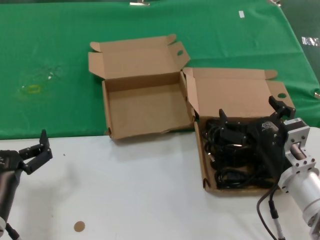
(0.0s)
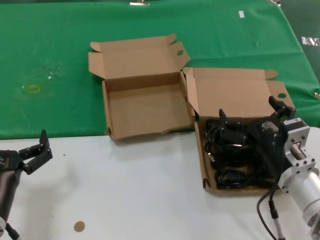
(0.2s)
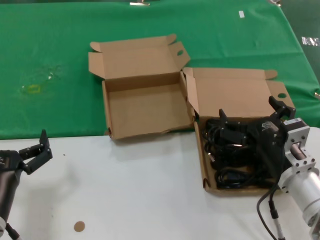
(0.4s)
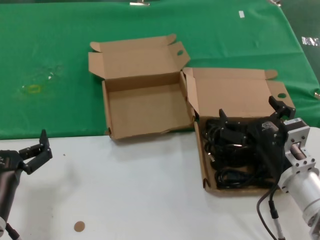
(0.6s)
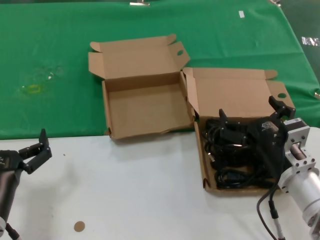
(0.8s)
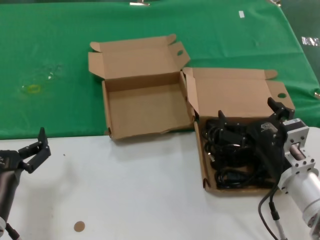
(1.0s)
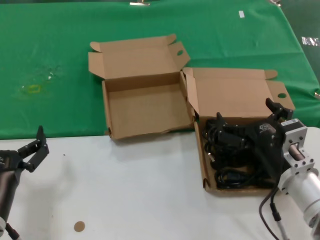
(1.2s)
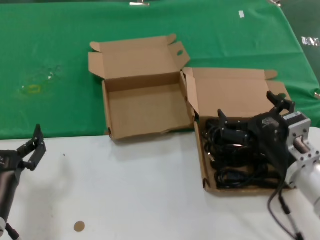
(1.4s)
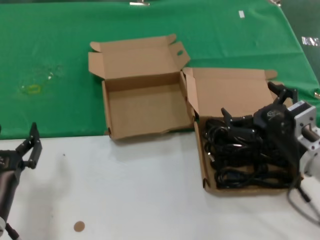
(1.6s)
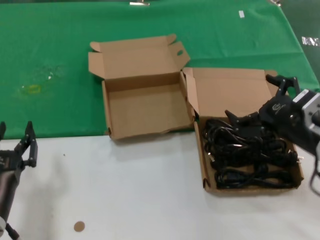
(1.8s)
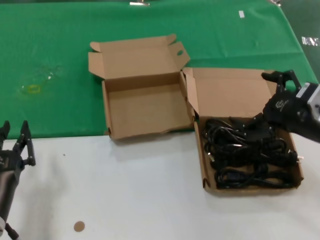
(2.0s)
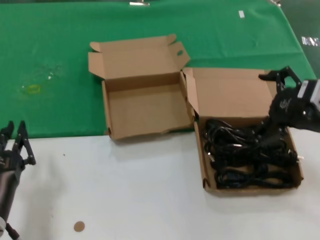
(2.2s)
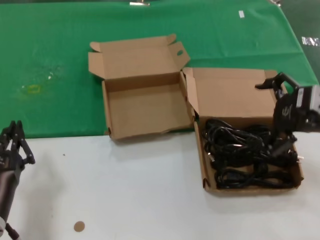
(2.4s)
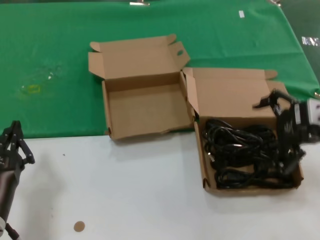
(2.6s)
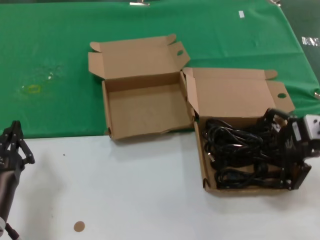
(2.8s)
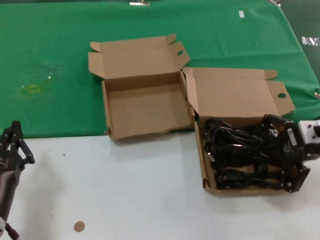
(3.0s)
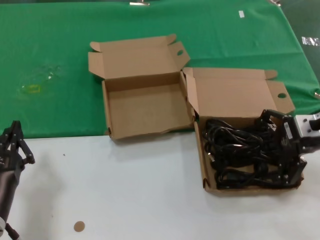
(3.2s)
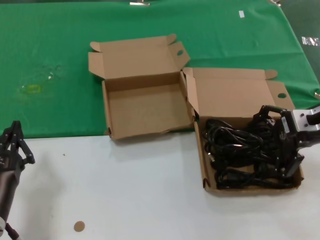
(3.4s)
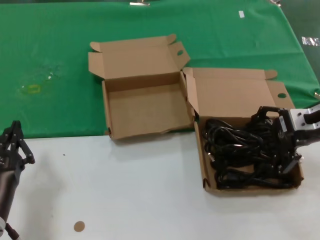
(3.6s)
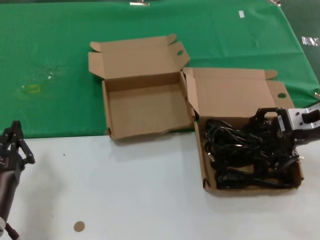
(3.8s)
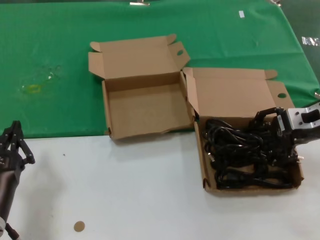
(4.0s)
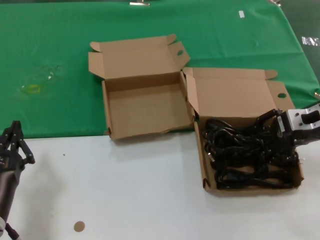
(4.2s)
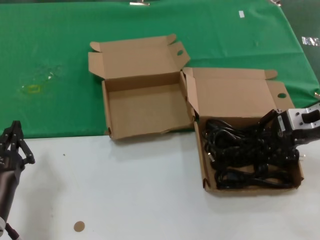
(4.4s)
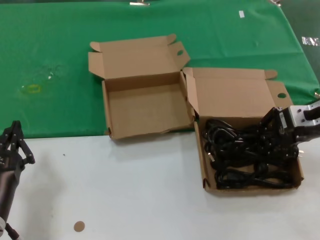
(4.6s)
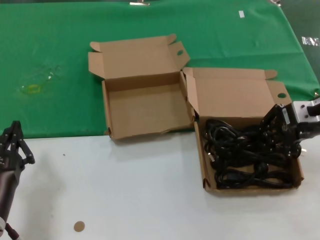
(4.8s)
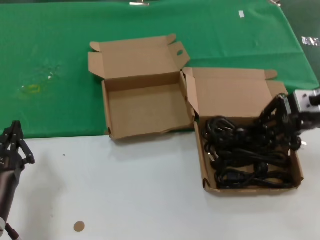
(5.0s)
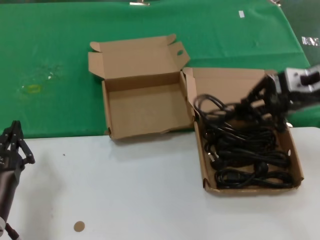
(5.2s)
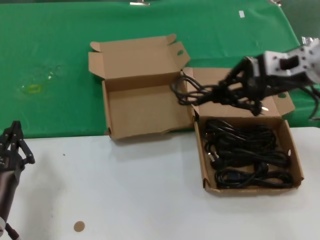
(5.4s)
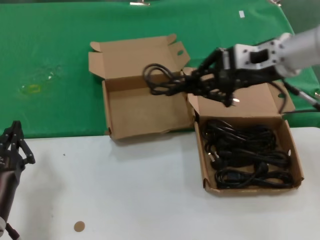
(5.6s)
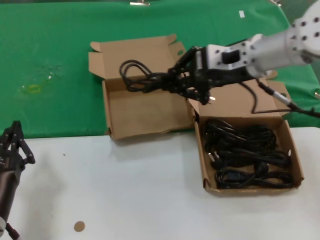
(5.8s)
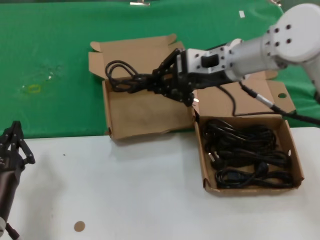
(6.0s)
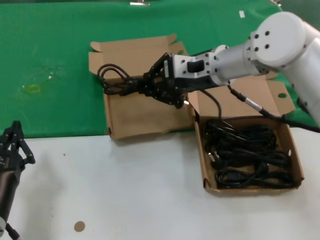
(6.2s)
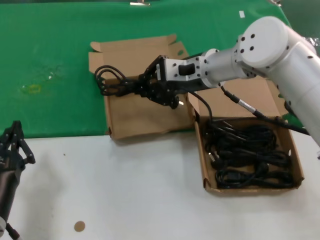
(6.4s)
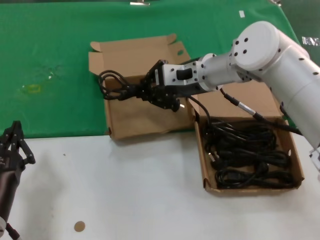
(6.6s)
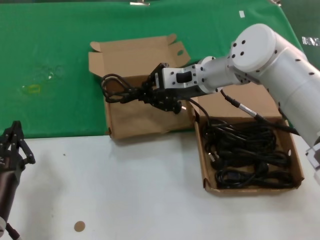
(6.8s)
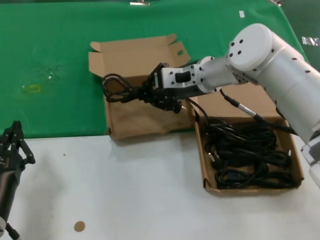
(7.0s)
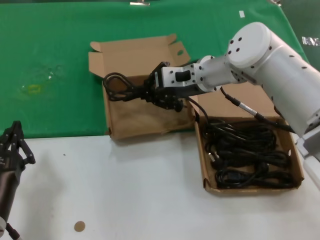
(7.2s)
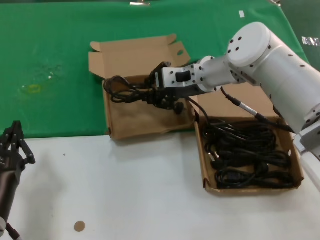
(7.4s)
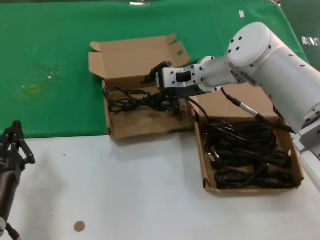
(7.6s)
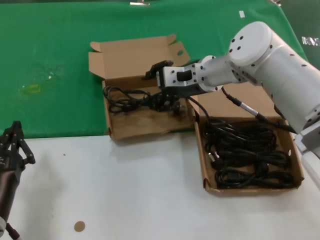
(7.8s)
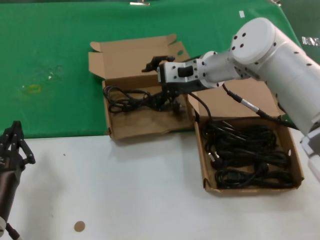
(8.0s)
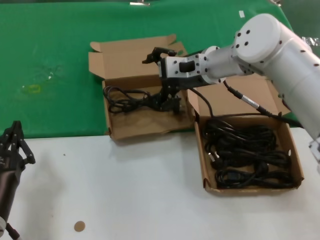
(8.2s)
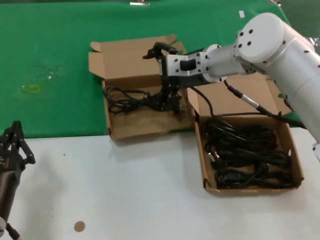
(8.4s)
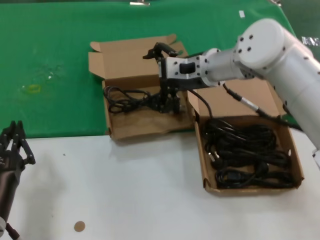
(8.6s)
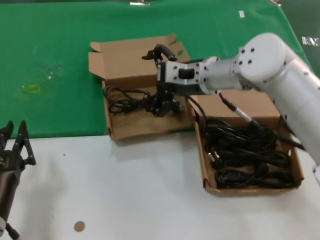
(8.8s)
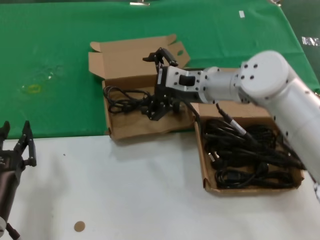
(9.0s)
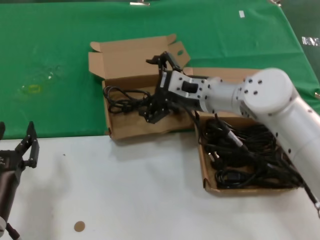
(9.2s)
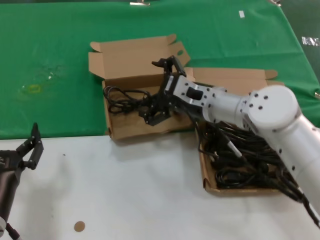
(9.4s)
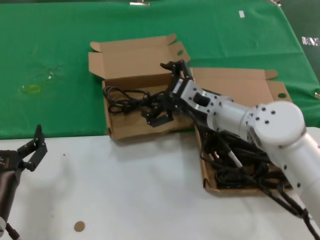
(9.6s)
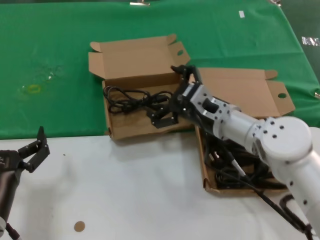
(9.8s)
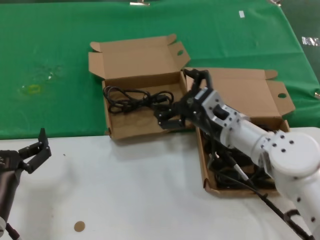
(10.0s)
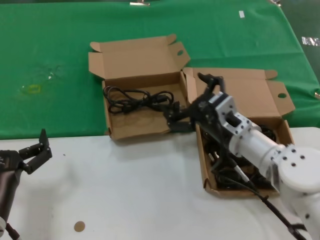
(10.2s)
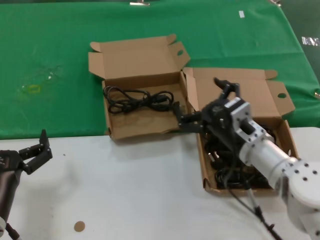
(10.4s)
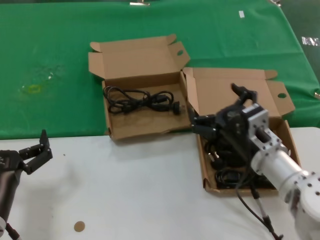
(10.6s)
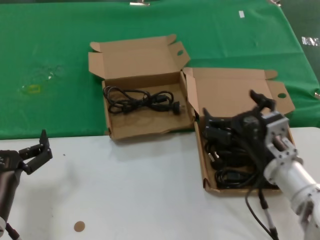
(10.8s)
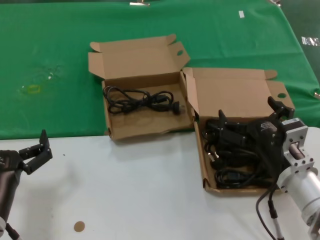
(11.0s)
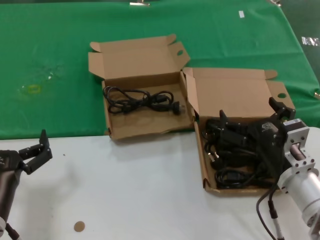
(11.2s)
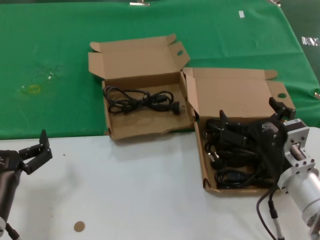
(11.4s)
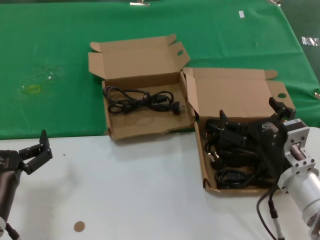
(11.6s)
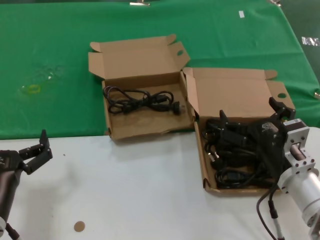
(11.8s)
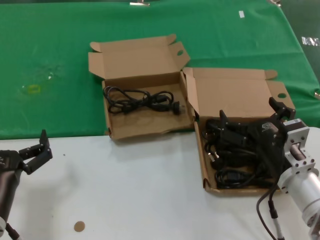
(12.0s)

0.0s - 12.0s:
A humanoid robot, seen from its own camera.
Task of the whole recording: take the parts from the box containing them and put them into an empty box.
Step, 0.0s - 4.2s: Grasp the data cable.
Step, 4.4s - 7.4s: Place the data cable in the another box.
0.0s - 1.6s: The right hand shifts by about 5 cm.
1.6s - 3.0s: The right hand heads upward, to the right and forward, covering approximately 15 cm.
3.0s - 4.4s: The right hand ends up about 5 cm from where it was.
4.4s - 6.0s: The right hand travels to the left and upward by about 20 cm.
6.0s - 7.6s: The right hand goes some 10 cm downward and forward.
7.6s - 9.0s: The hands stay close to where they were, moving slightly.
9.0s - 10.4s: The right hand shifts about 20 cm backward, downward and to the right.
10.4s - 12.0s: The right hand shifts roughly 10 cm backward.

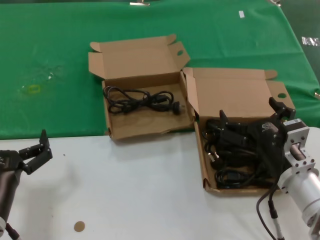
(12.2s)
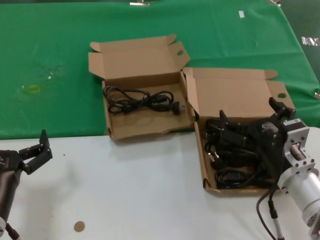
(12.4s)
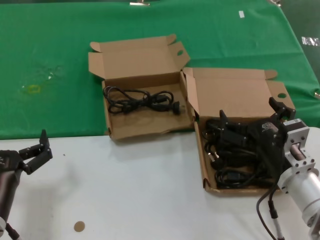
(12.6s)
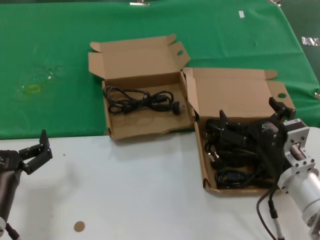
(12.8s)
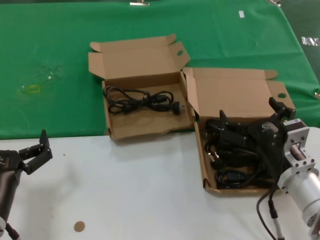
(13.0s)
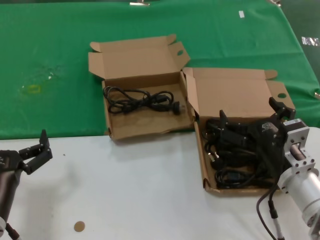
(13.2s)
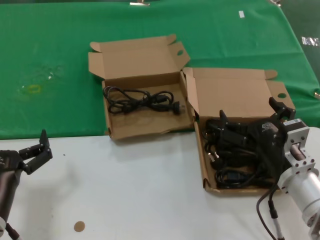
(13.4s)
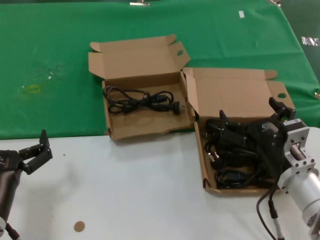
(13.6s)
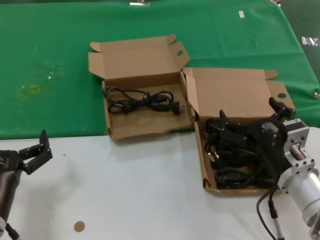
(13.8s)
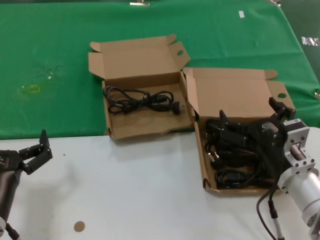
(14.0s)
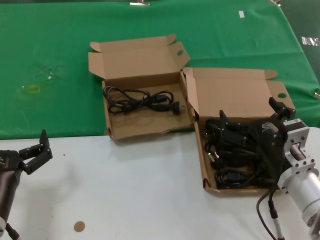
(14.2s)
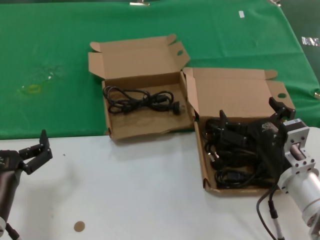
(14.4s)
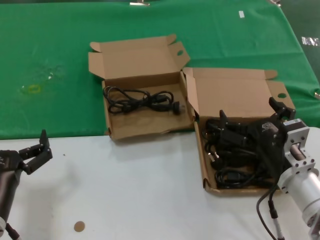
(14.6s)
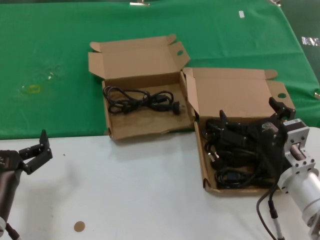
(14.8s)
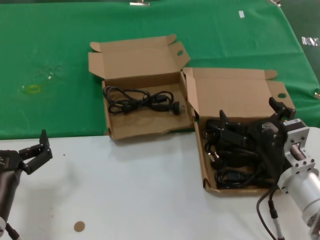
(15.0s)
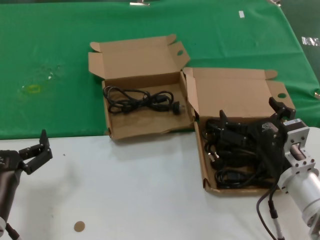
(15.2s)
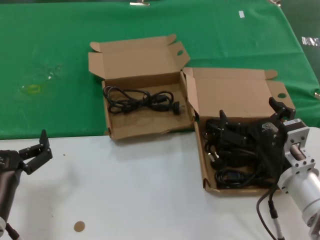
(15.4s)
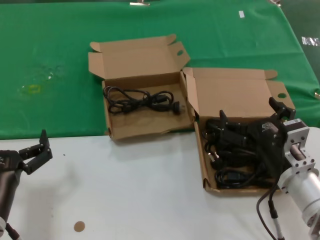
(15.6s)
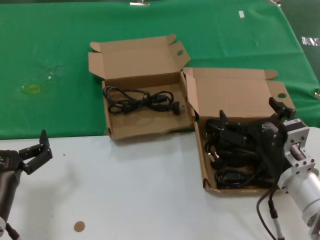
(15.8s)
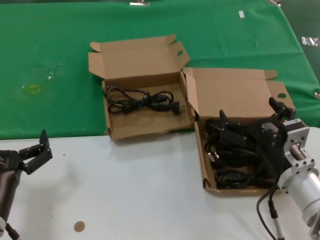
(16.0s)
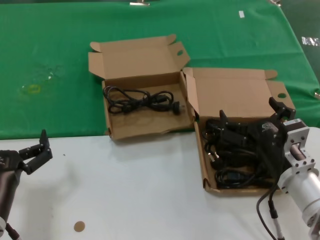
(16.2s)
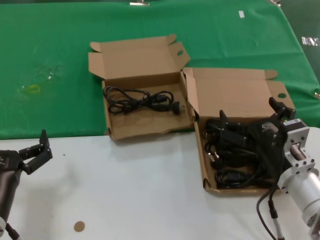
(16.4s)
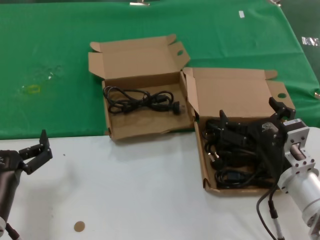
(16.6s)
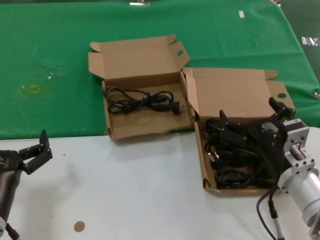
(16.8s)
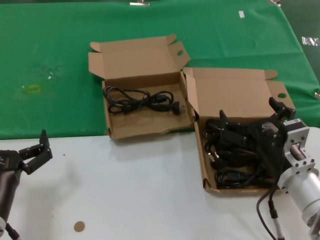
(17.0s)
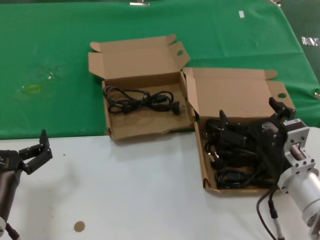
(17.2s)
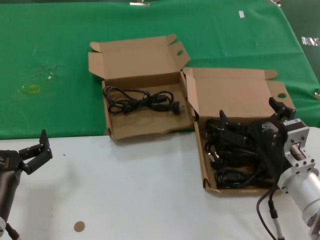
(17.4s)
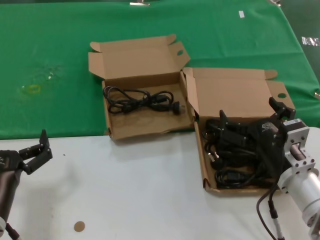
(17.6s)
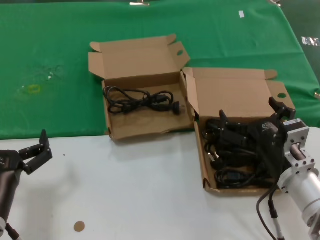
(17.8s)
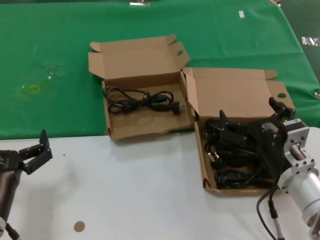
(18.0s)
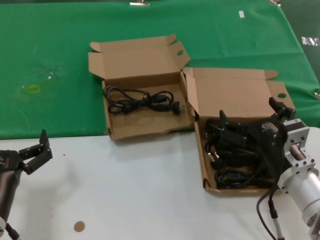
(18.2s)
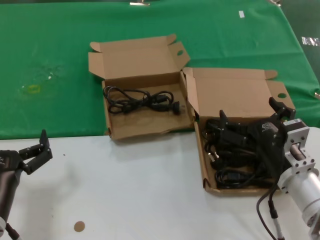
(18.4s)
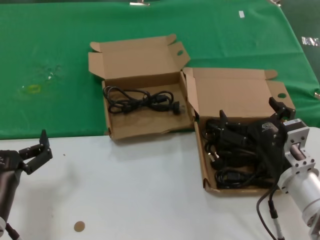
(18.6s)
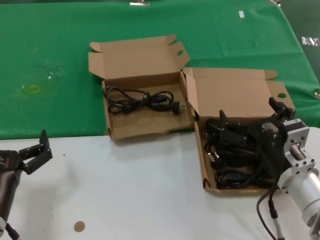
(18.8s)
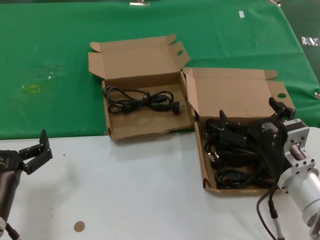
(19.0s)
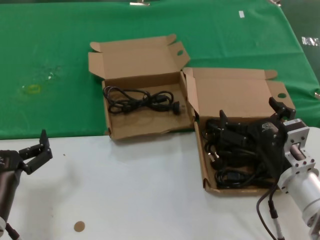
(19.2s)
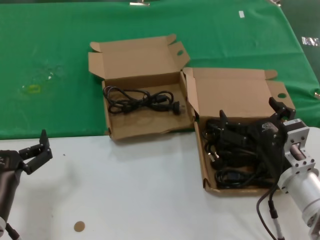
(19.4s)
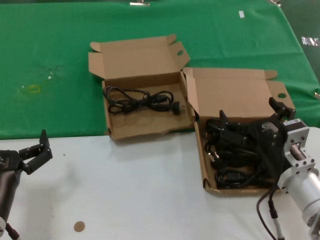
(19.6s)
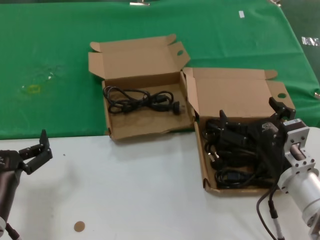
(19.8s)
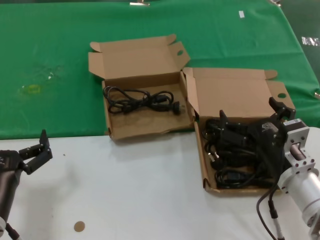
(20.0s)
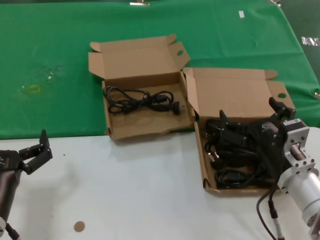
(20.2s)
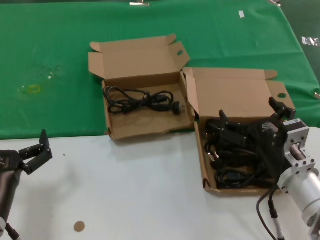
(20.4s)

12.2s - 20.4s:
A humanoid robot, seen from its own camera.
Task of the whole recording: take the parts from the box containing them and put them into an empty box.
12.2s - 20.4s: Both hands stay put.

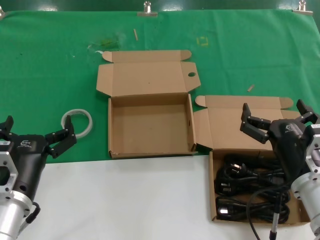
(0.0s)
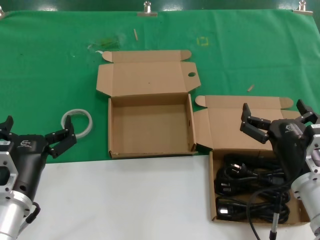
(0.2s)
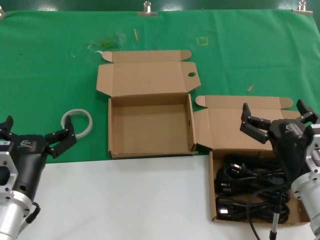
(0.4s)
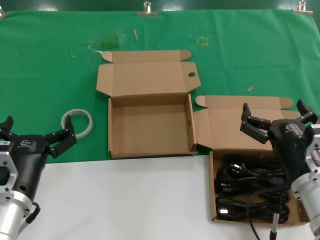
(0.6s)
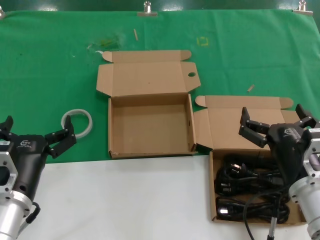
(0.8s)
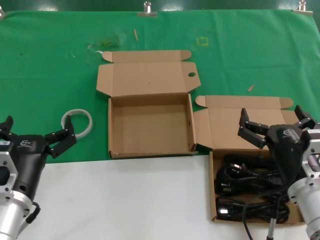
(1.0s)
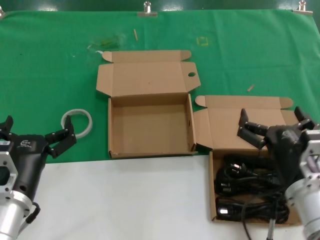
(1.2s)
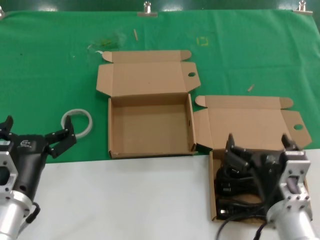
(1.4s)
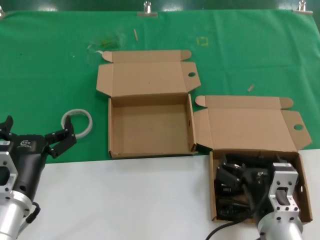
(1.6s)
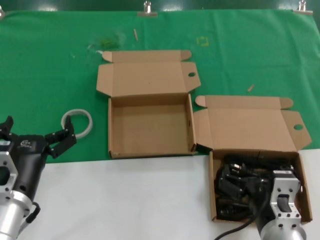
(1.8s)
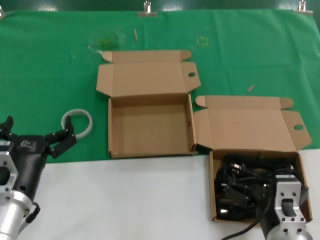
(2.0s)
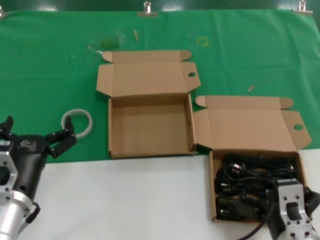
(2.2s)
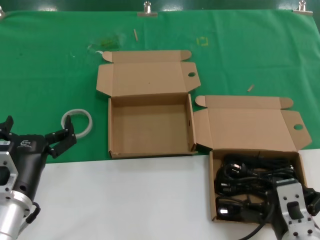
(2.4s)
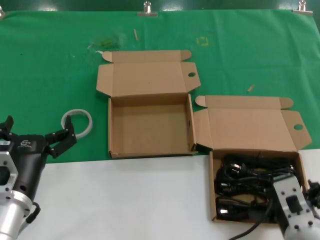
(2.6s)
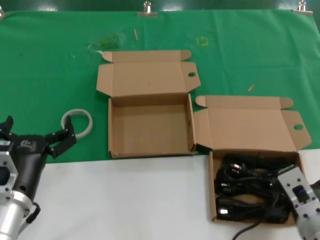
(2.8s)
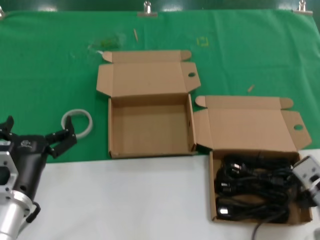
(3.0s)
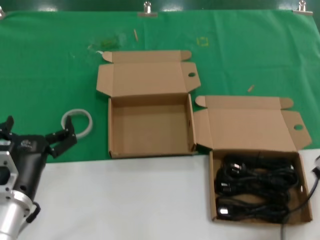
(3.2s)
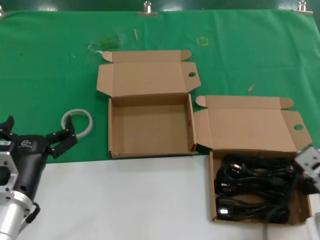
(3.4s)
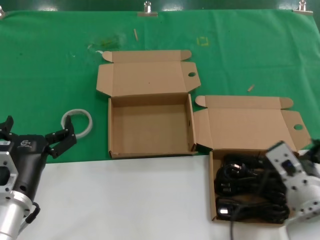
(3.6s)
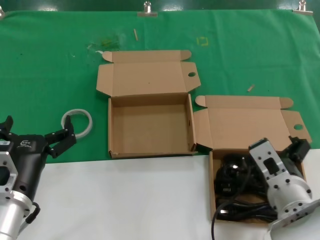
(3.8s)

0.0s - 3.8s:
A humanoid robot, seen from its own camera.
Task of the whole recording: take the parts from the box containing them and put them into an empty box.
0.0s - 1.2s: The hands stay close to where they were, moving slightly.
1.2s - 2.6s: The right hand moves backward, roughly 5 cm.
2.6s - 3.8s: The right hand shifts approximately 10 cm forward, and travels to the right and back again, roughly 10 cm each way.
